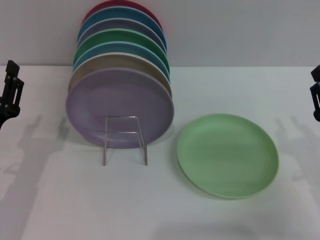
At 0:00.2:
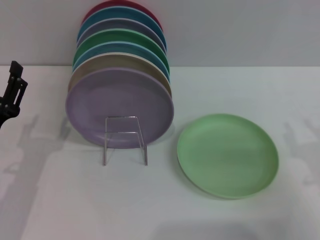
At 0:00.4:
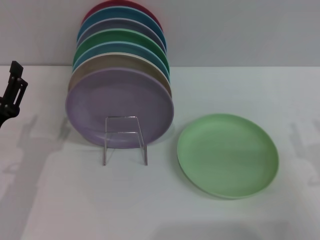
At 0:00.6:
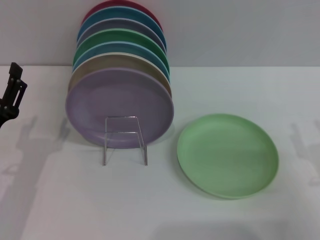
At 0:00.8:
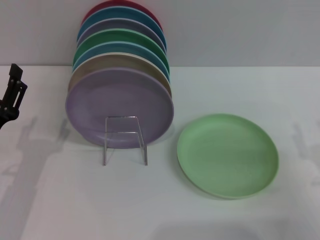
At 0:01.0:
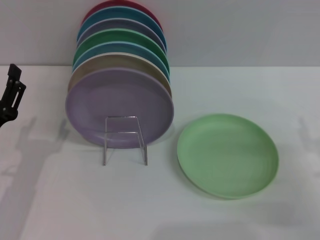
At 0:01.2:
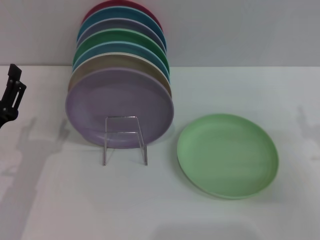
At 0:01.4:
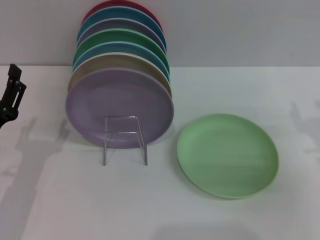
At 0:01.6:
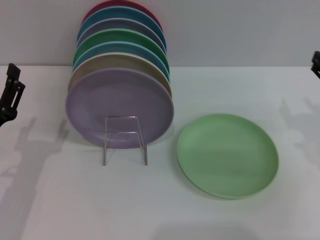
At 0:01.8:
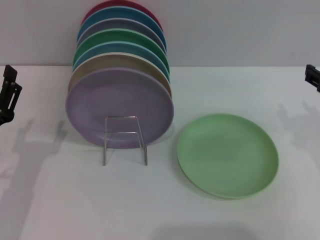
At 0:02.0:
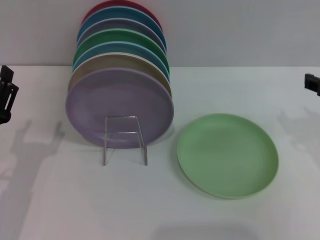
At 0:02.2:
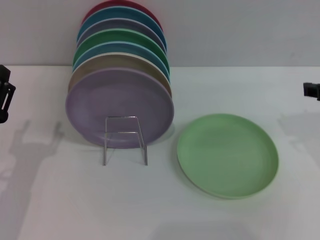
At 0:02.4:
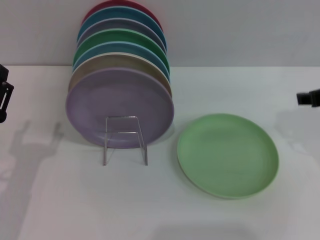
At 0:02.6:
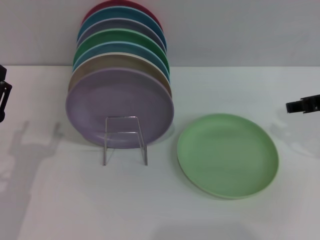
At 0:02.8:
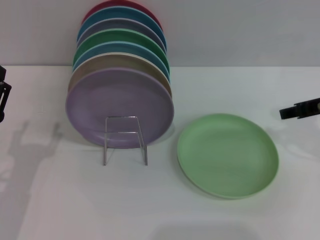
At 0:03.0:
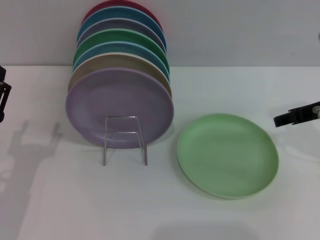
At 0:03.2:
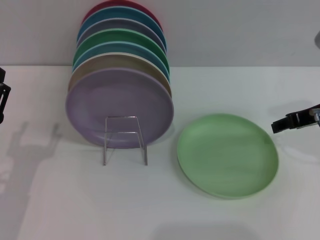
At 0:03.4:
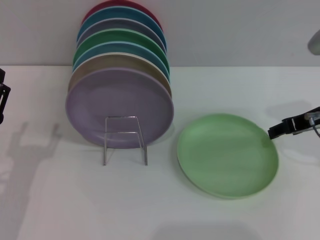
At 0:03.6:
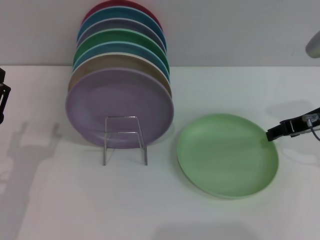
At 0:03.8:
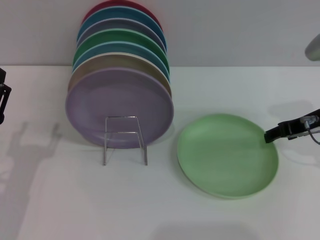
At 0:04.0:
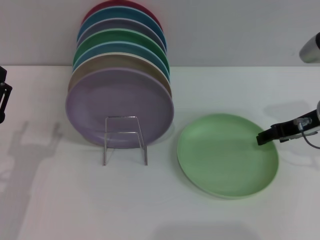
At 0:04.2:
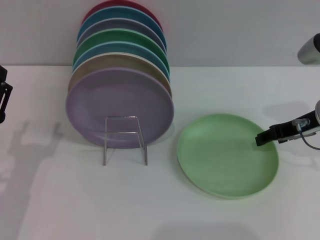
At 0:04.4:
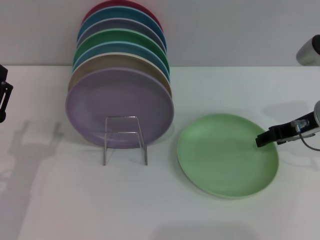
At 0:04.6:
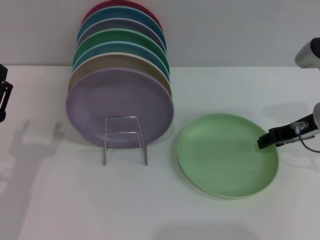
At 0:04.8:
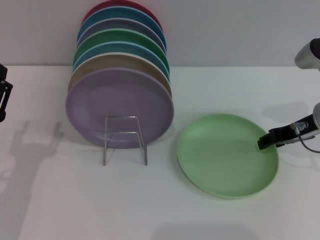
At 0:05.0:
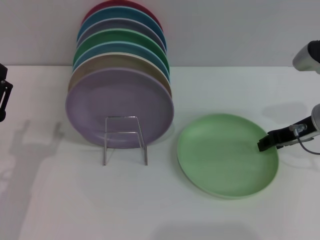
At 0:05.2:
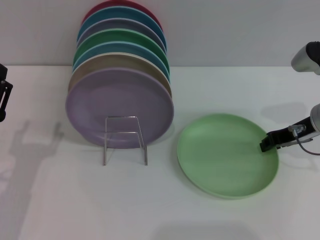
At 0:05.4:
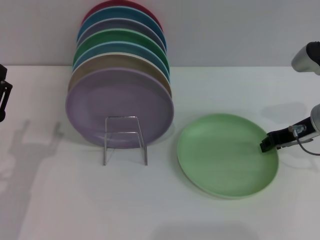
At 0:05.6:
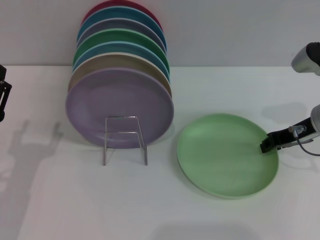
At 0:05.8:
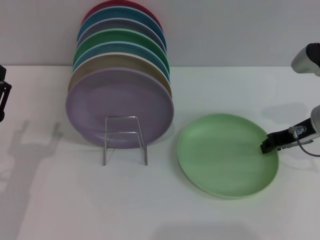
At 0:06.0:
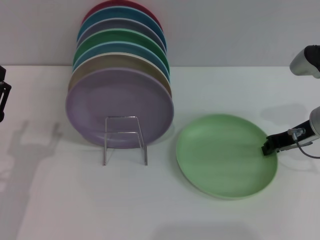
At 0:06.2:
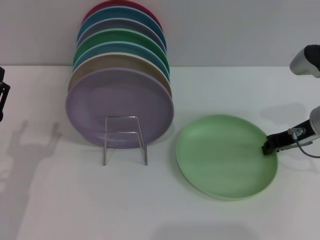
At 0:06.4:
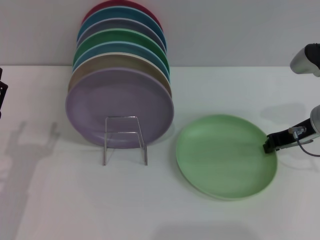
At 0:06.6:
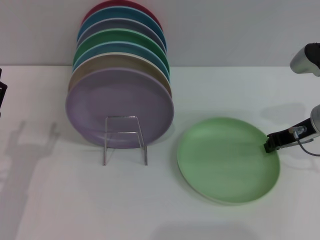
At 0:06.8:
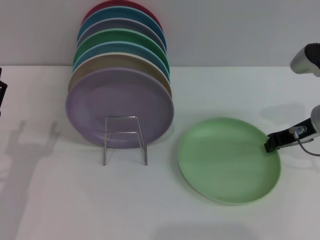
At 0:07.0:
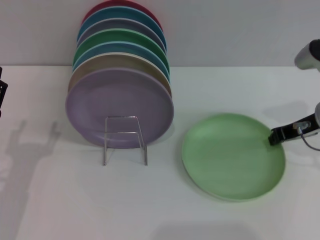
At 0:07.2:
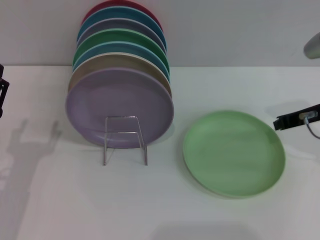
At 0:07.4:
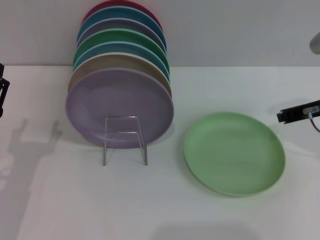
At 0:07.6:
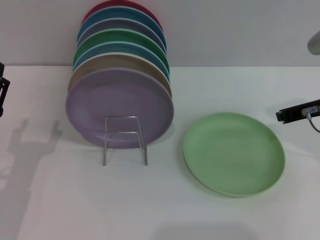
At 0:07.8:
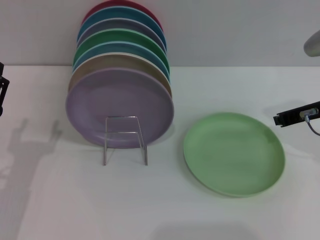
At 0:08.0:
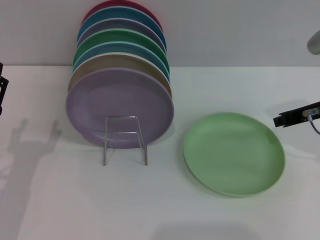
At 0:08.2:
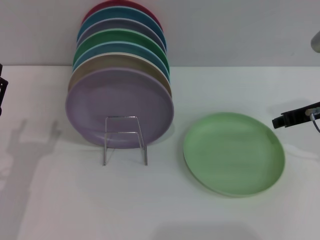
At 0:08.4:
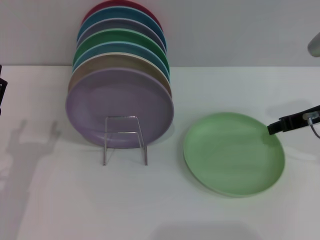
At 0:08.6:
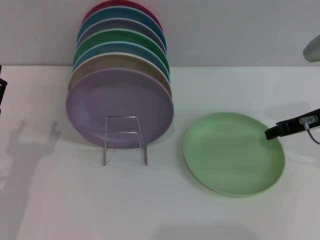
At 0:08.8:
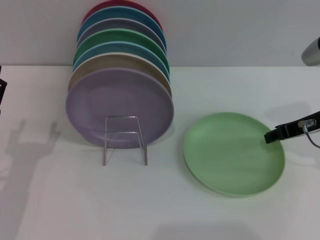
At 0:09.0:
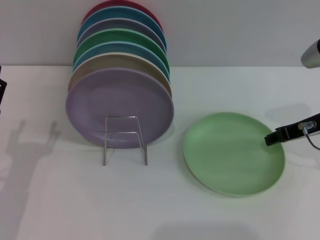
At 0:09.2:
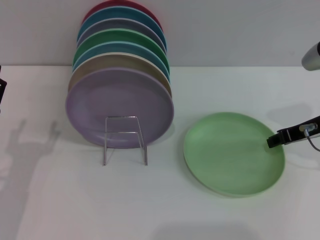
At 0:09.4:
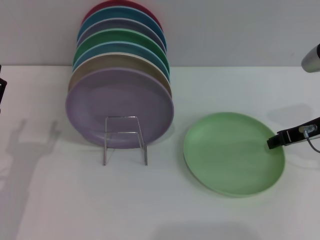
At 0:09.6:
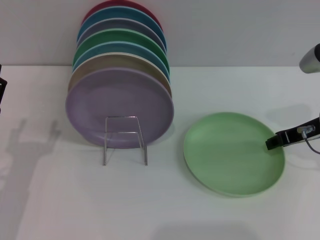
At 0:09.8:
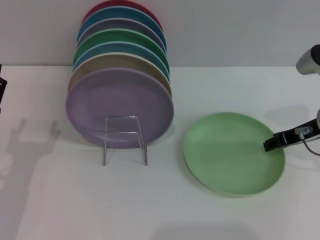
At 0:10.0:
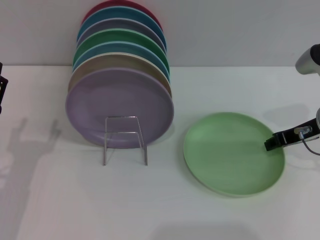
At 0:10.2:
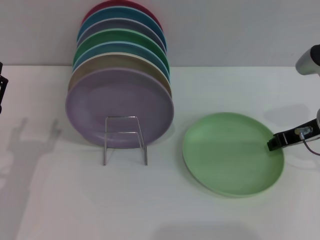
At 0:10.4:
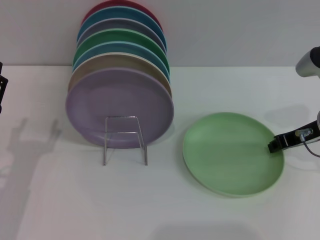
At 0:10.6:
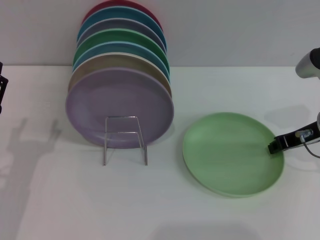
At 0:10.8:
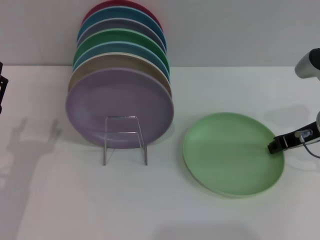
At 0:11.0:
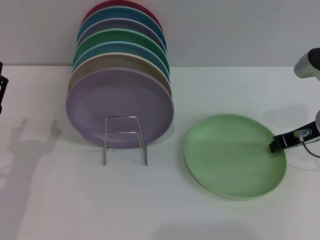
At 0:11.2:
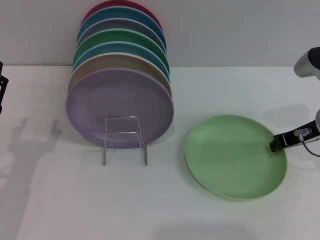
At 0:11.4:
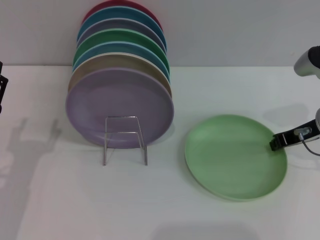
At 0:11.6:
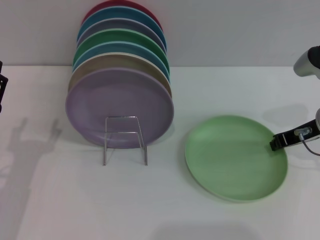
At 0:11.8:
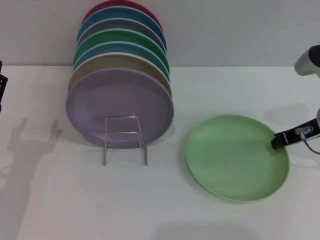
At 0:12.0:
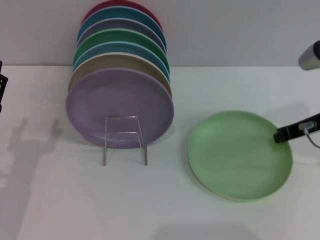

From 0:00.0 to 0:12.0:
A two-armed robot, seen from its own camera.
Task of the whole recording: Grip the plate with one hand, pass it to the other, then set it on the shelf.
From 0:00.0 to 0:01.6: The right gripper moves upward, some 10 cm, and opens.
From 0:01.6 to 0:03.0: The right gripper shifts about 5 cm forward.
From 0:03.0 to 0:04.4: The right gripper moves about 5 cm.
From 0:04.4 to 0:06.0: The right gripper closes its fingers.
From 0:06.0 to 0:07.6: The grippers move only a little.
From 0:07.6 to 0:09.0: The right gripper opens up.
From 0:09.0 to 0:10.4: Both grippers stay put.
From 0:10.4 to 0:12.0: Both grippers stay about where they are.

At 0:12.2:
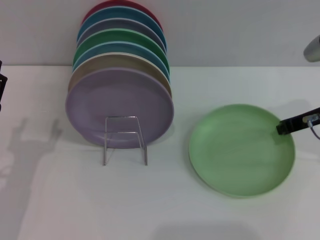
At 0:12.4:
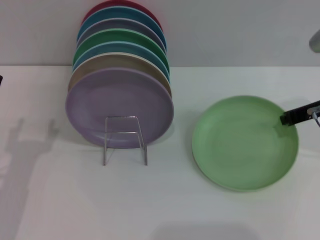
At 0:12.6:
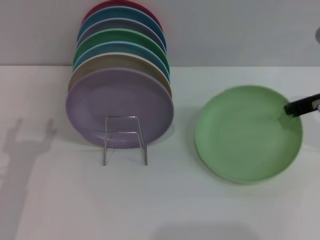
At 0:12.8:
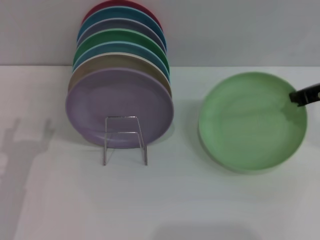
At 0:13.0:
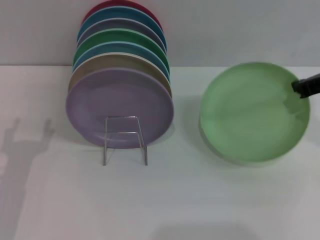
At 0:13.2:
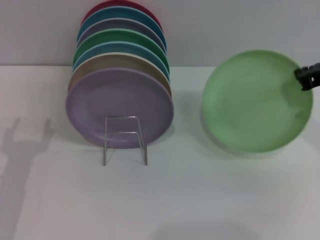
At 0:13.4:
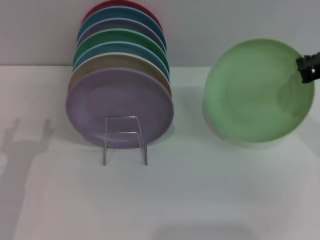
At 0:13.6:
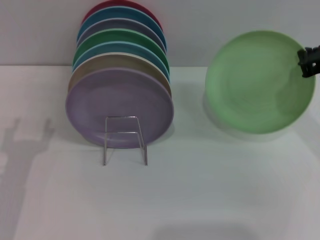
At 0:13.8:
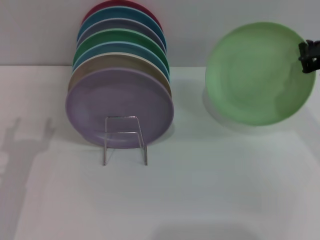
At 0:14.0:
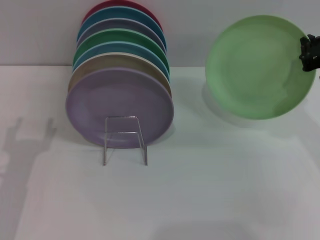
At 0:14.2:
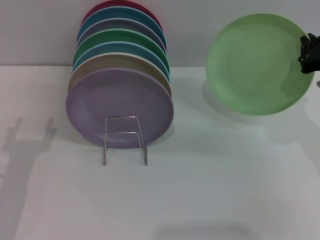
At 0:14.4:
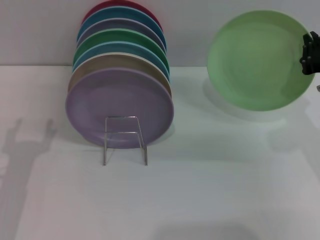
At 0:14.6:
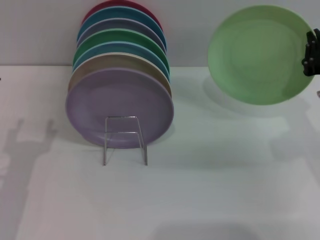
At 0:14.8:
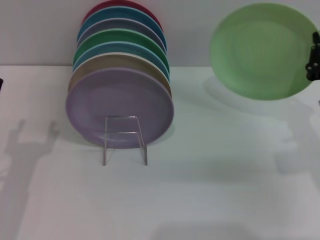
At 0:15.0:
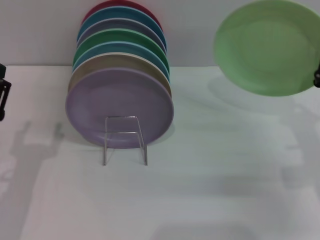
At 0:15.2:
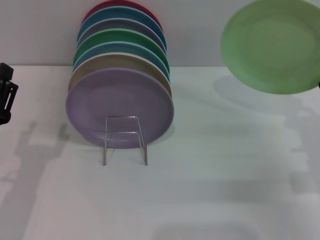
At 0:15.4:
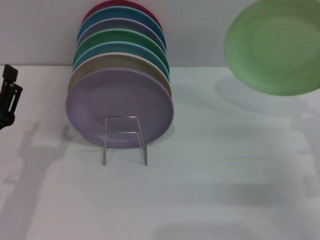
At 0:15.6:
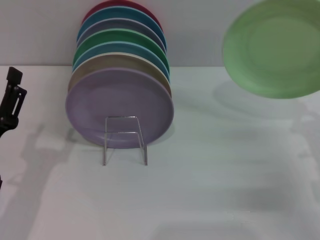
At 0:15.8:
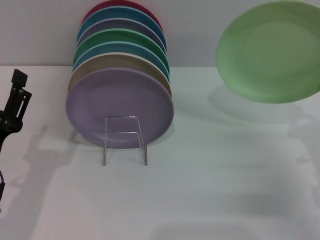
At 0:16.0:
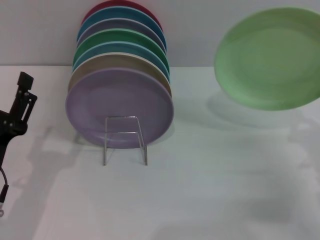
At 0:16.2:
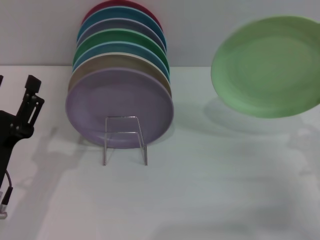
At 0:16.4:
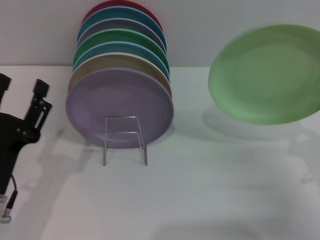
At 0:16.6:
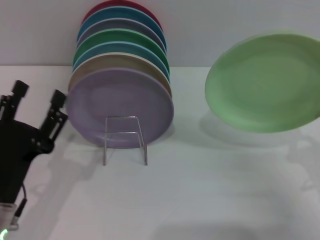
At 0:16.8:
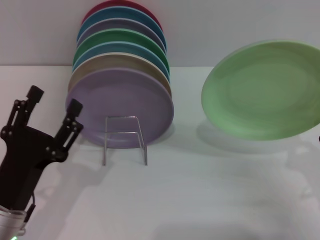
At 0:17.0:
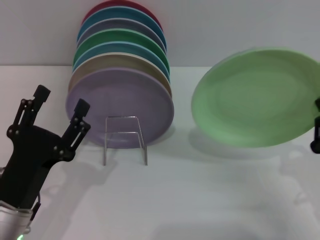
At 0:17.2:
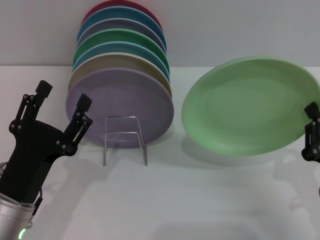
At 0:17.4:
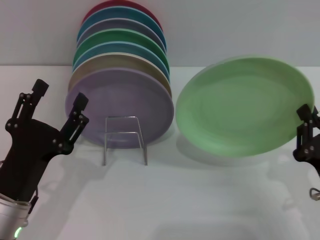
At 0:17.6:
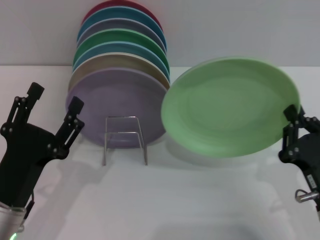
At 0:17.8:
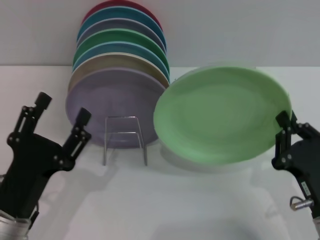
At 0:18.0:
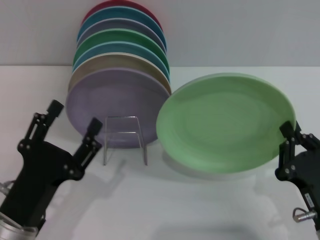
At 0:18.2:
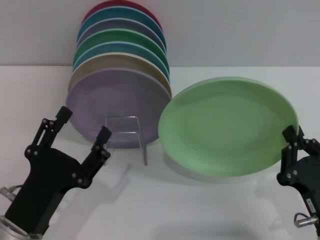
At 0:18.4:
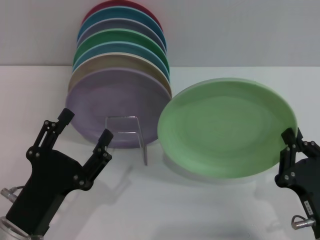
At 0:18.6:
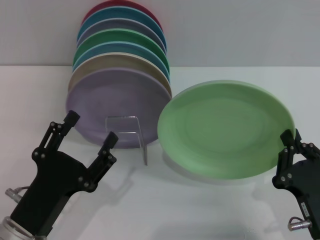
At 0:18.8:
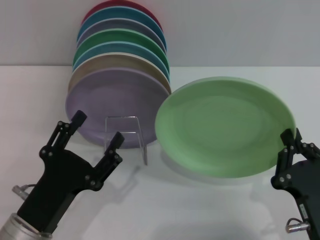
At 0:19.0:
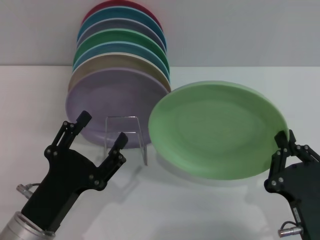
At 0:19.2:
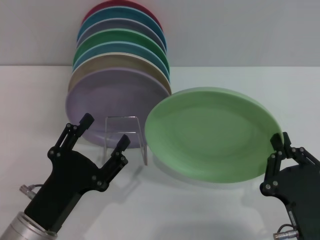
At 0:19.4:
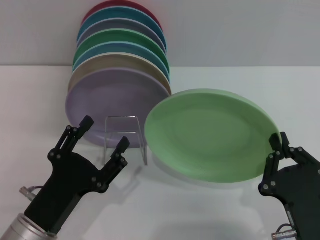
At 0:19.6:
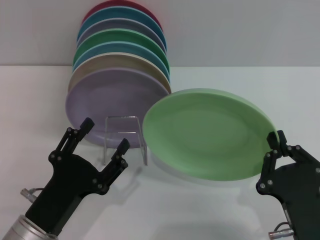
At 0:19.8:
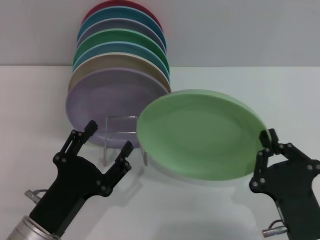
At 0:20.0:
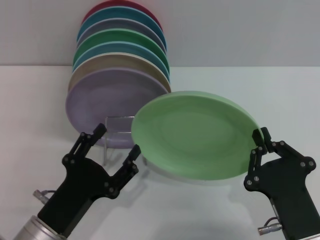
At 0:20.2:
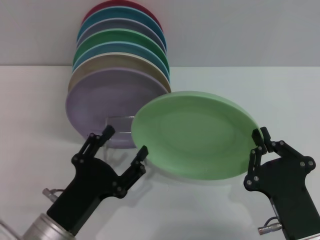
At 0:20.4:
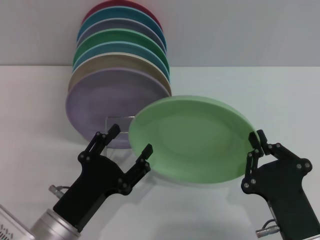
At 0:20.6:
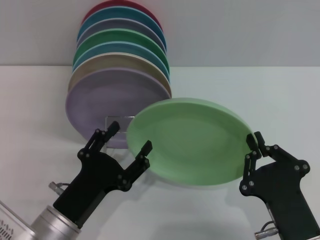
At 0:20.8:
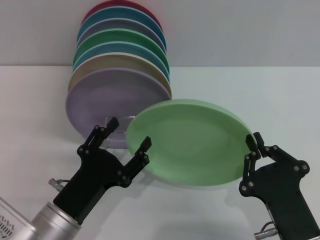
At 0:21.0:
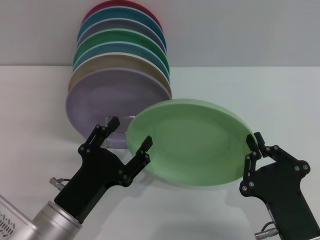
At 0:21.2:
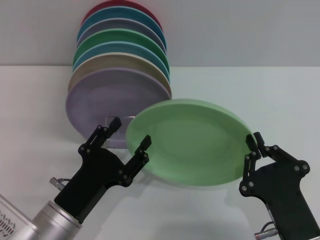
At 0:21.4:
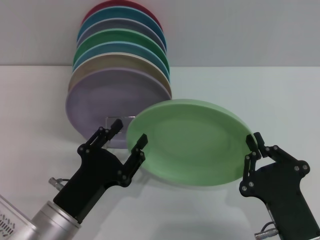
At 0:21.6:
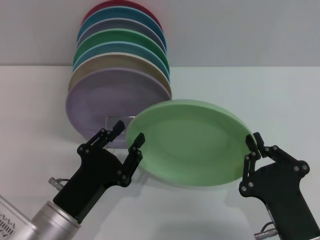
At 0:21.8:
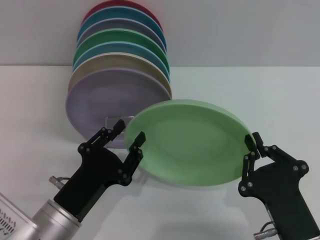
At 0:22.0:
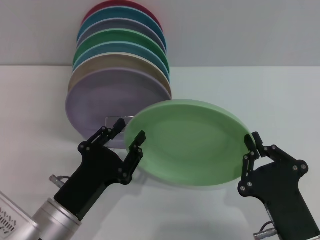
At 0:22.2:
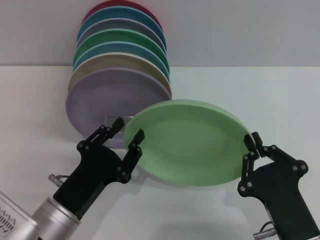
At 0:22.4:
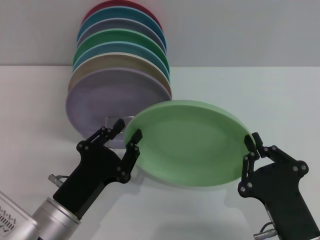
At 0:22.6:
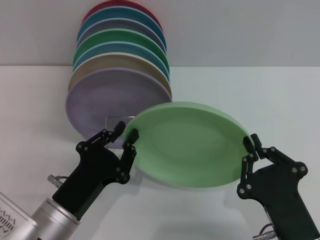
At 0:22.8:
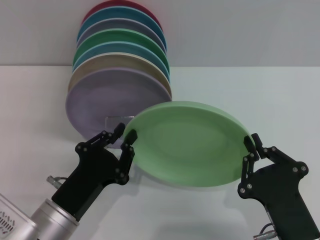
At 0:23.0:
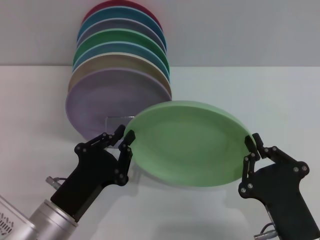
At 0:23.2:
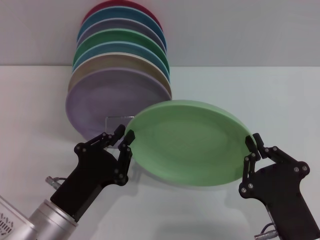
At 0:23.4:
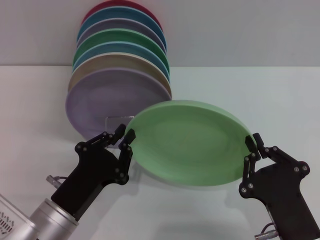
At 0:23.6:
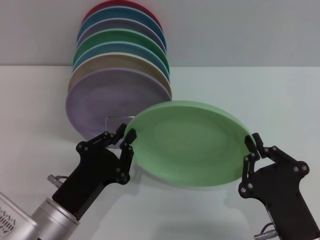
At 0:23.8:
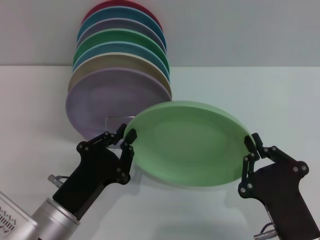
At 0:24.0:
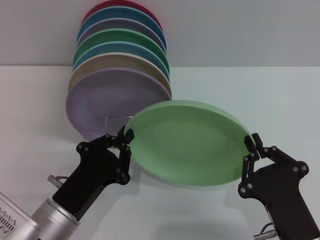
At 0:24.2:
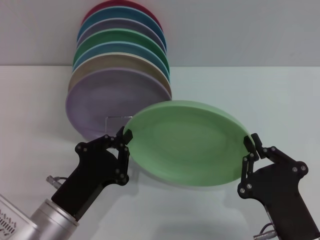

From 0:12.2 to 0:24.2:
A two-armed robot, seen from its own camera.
Task of the whole recording: Grip the plate with one hand, pass it to the other, then set it on the shelf.
Step, from 0:12.2 to 0:14.4: Pick up the plate with the right gripper.
From 0:12.2 to 0:13.8: The right gripper ends up some 5 cm from where it was.
From 0:13.8 to 0:15.2: The right gripper travels downward and backward by about 15 cm.
From 0:15.2 to 0:16.6: The right gripper moves backward, some 5 cm.
From 0:16.6 to 0:18.2: The right gripper heads to the left and backward, covering roughly 10 cm.
From 0:18.2 to 0:19.8: The right gripper goes about 5 cm to the left.
From 0:19.8 to 0:21.2: The grippers stay close to where they were, moving slightly.
From 0:21.2 to 0:22.6: The left gripper closes.
From 0:22.6 to 0:24.2: The two grippers keep their place.
